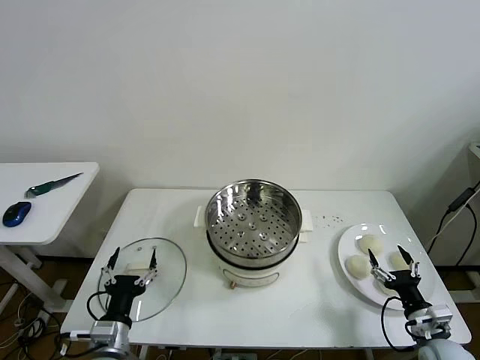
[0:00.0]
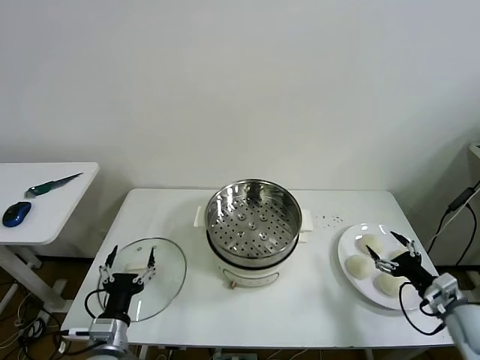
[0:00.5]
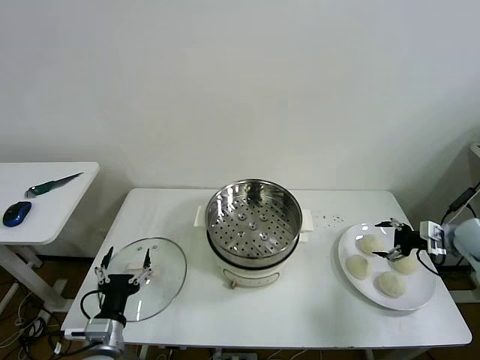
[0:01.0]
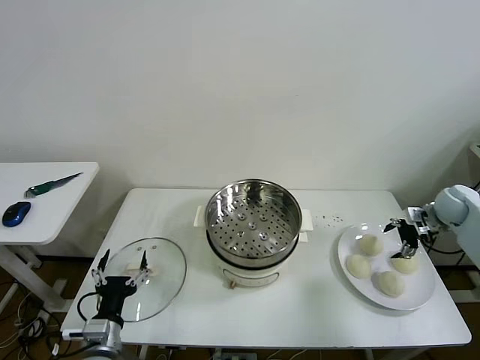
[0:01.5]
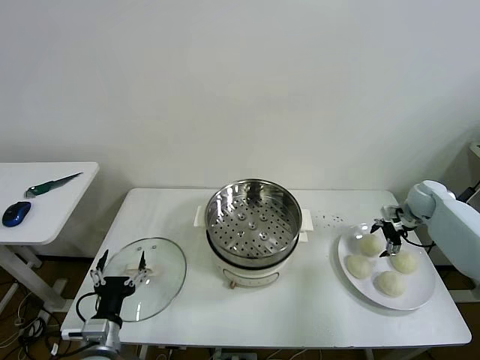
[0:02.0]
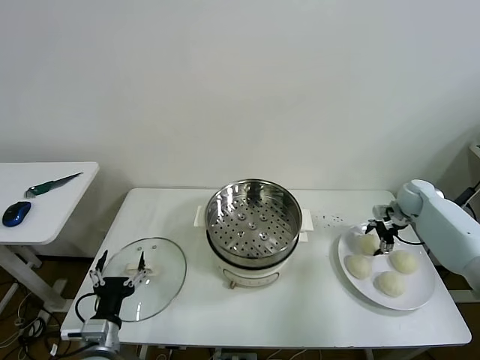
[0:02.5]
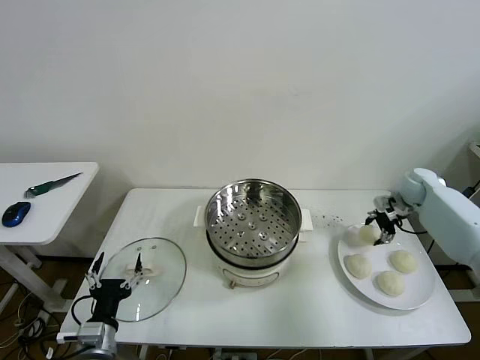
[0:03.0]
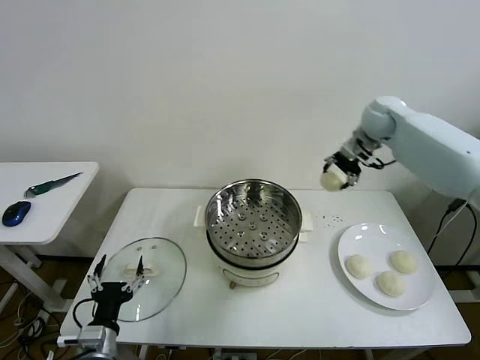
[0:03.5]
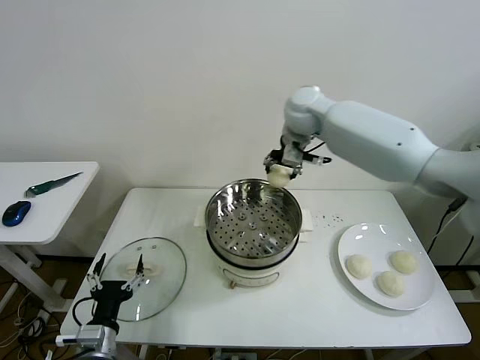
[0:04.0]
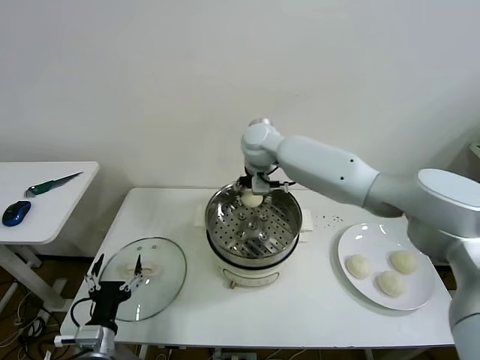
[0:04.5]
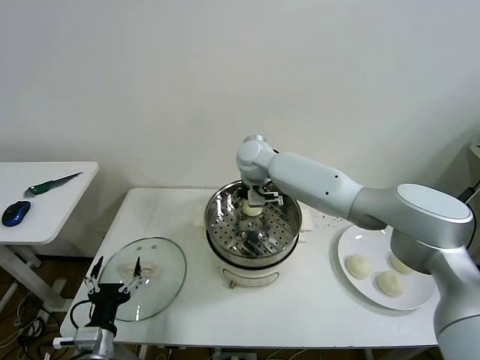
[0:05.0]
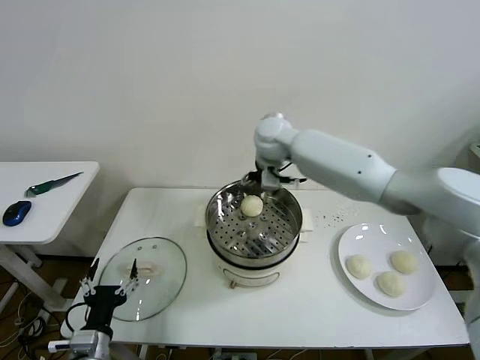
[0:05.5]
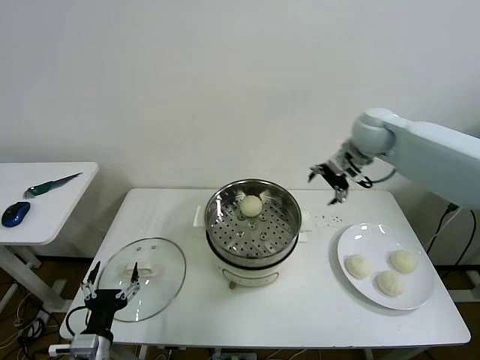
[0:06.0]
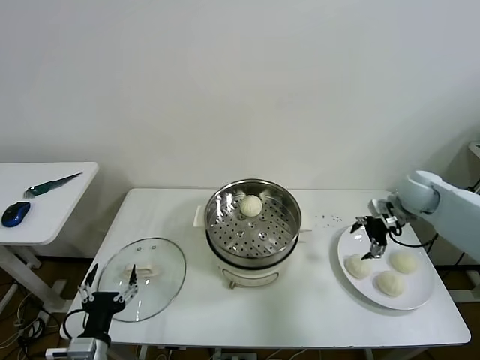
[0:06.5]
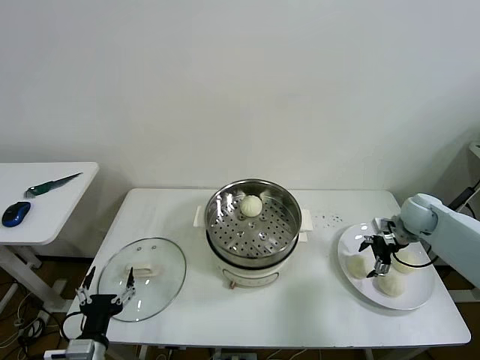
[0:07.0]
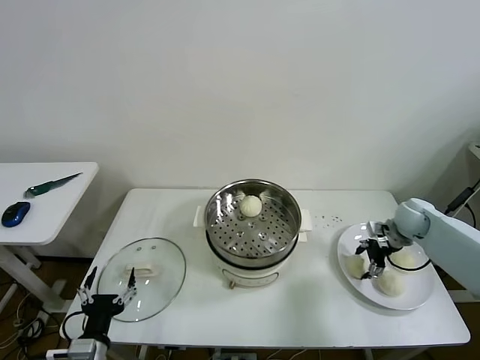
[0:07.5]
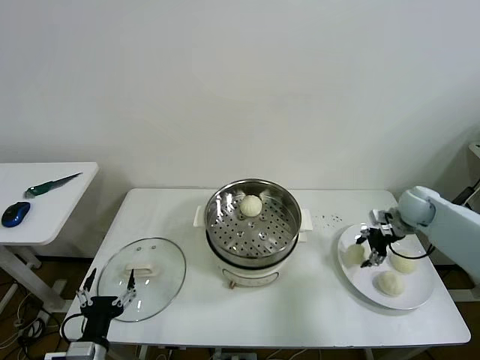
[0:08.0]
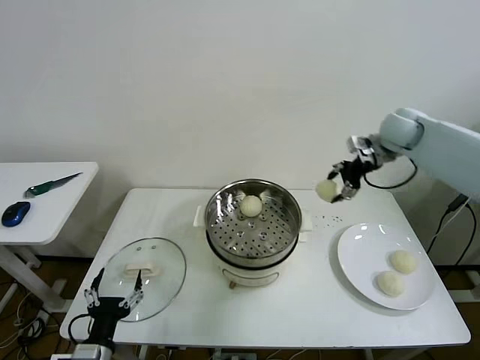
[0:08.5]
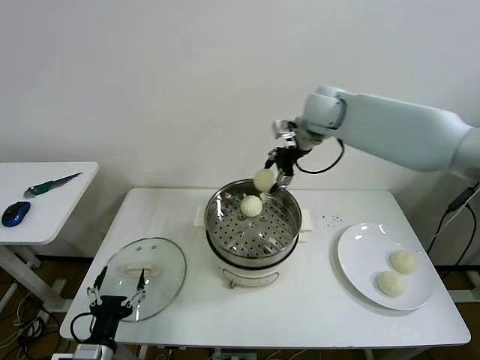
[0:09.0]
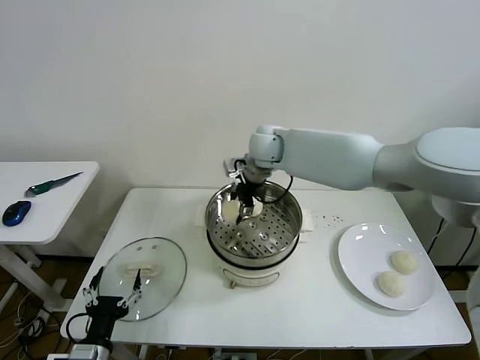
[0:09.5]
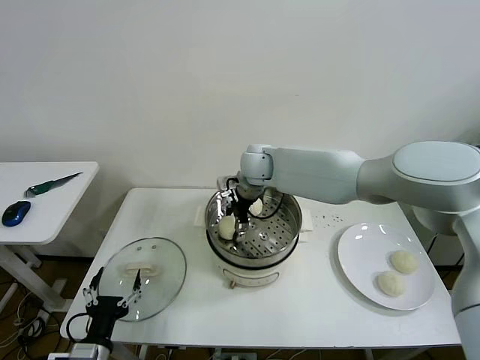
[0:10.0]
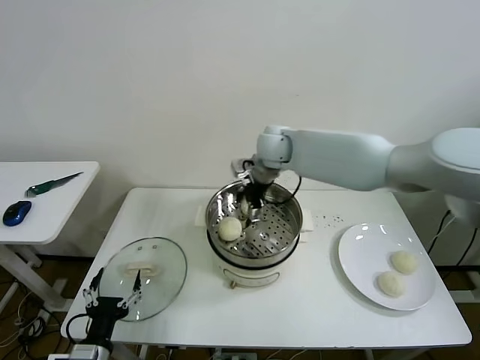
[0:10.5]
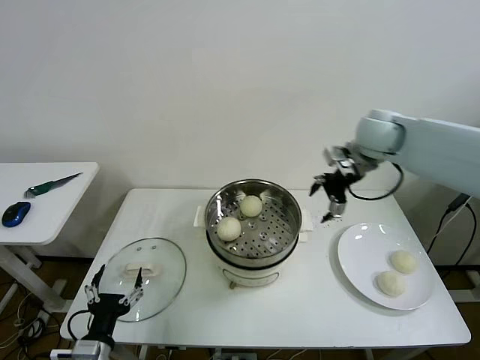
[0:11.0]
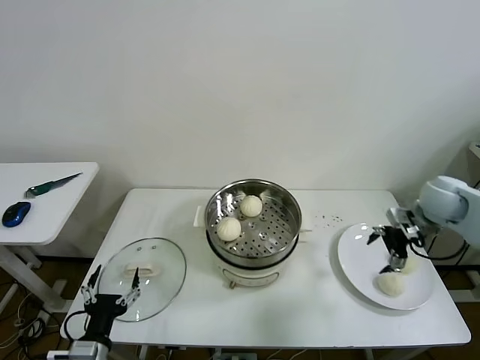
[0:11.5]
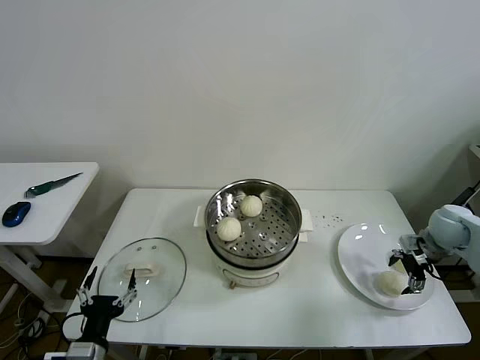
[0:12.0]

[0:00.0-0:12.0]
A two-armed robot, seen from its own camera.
Task of the whole recording: take steamed baozi put them in steamer then cover it.
Step, 0:00.0 to 0:02.5: Grasp the baozi in the plate with right gripper.
Step, 0:03.0 to 0:05.0: Place the baozi on the steamer with right gripper.
Step, 0:05.5 to 0:07.0: Grasp the baozi in the plate with right gripper.
Step, 0:07.5 to 0:10.0: Place the baozi on the steamer with right gripper.
0:02.0 to 0:04.0: The right gripper heads to the left and upward, covering roughly 50 cm, and closes.
0:04.0 to 0:06.0: The right gripper shifts approximately 25 cm to the right, and opens.
0:06.0 to 0:08.0: The right gripper is displaced downward and to the right by some 15 cm, and closes up.
0:08.0 to 0:10.0: The right gripper moves to the left, some 40 cm, and opens up.
0:10.0 to 0:12.0: The right gripper moves to the right, some 40 cm.

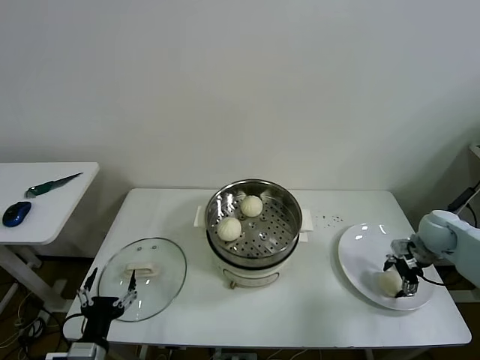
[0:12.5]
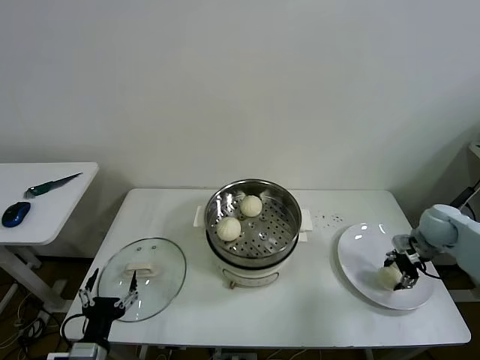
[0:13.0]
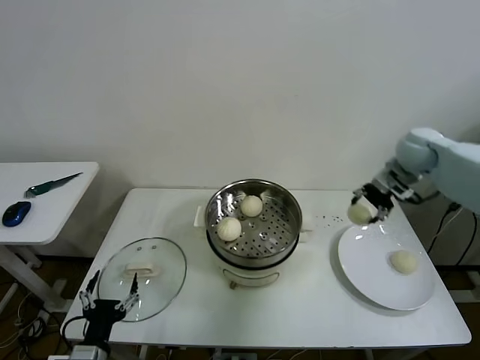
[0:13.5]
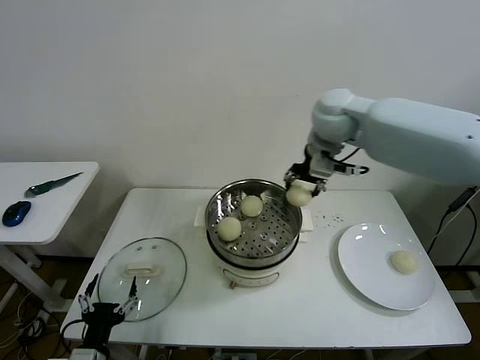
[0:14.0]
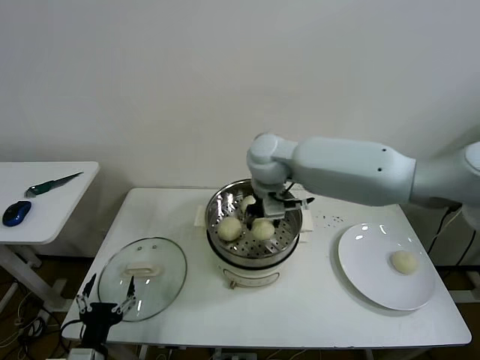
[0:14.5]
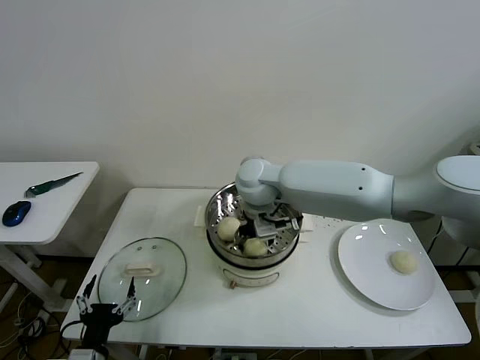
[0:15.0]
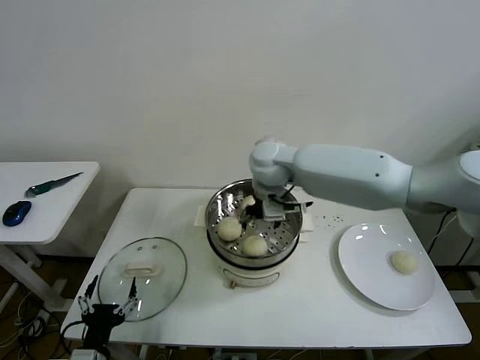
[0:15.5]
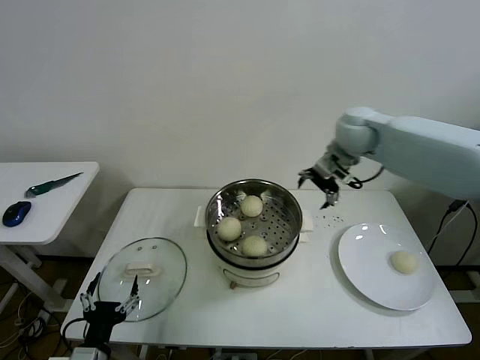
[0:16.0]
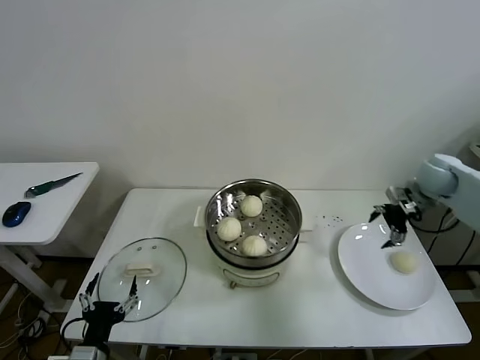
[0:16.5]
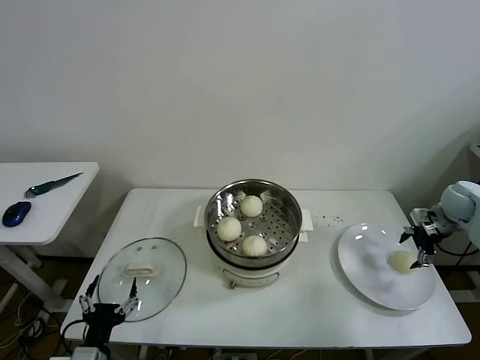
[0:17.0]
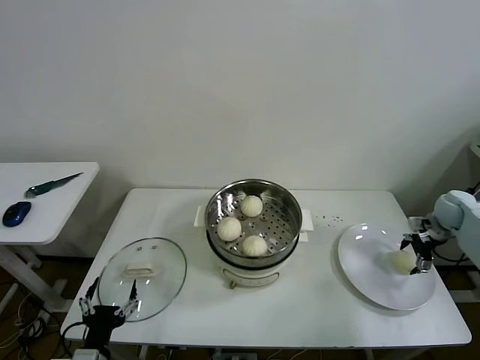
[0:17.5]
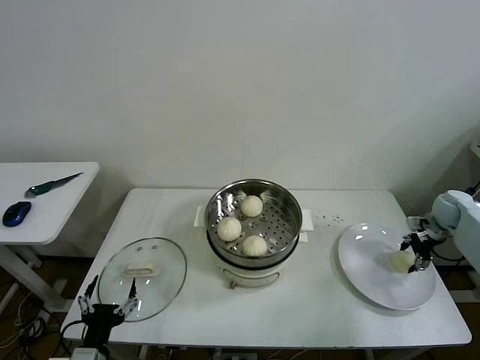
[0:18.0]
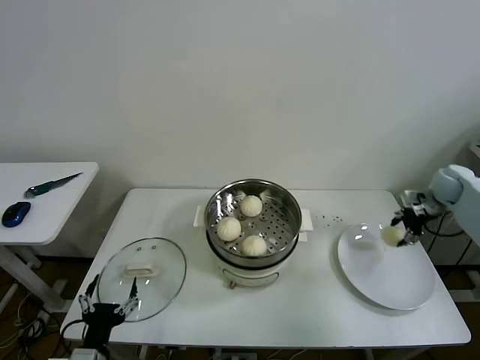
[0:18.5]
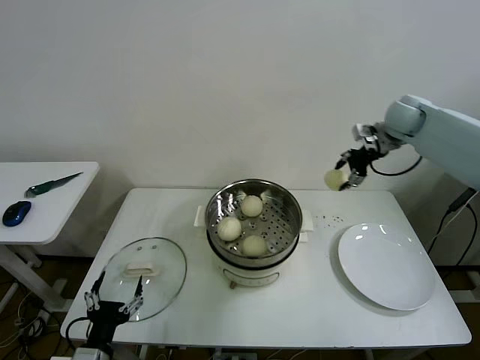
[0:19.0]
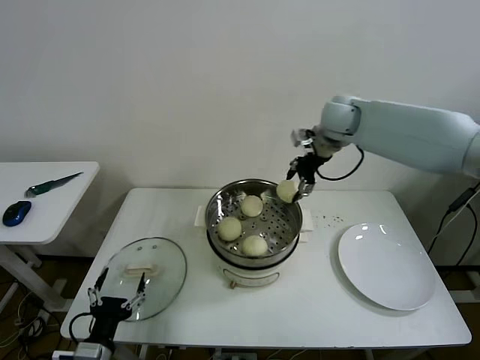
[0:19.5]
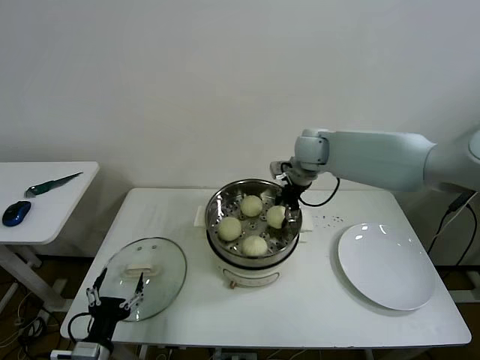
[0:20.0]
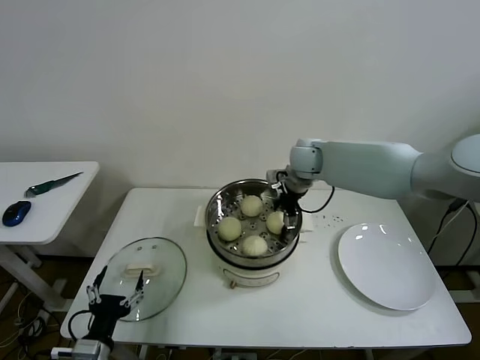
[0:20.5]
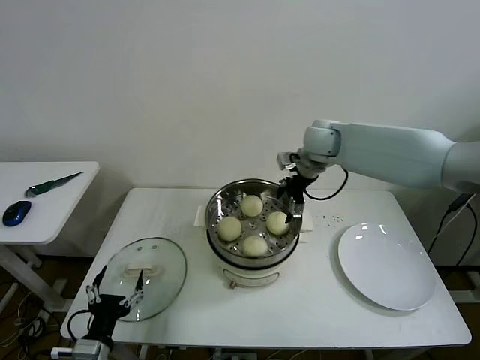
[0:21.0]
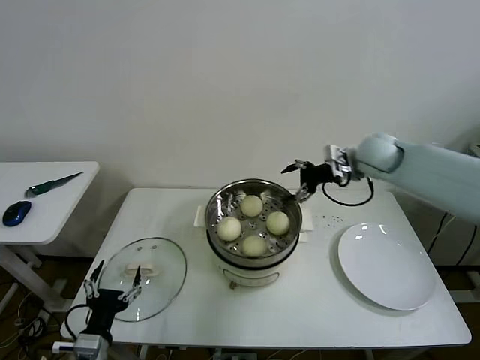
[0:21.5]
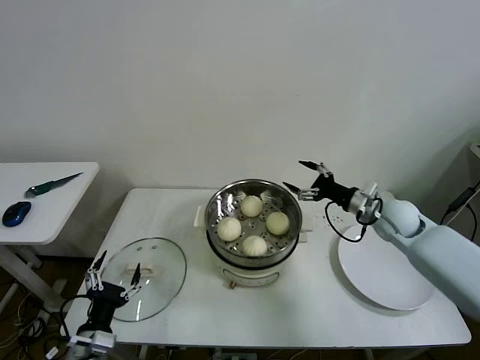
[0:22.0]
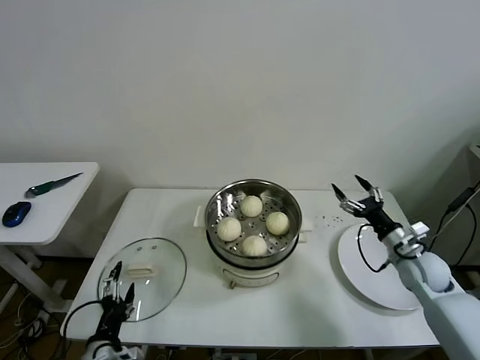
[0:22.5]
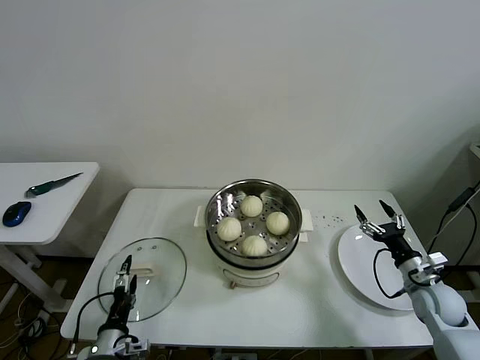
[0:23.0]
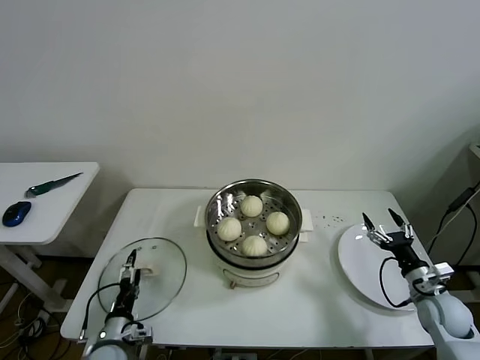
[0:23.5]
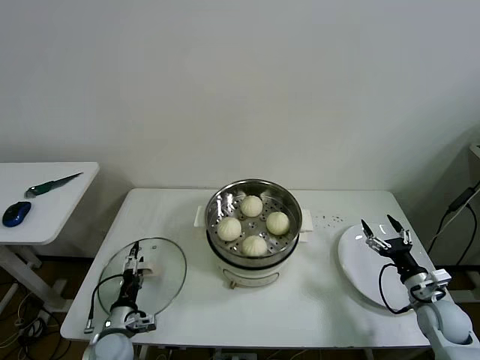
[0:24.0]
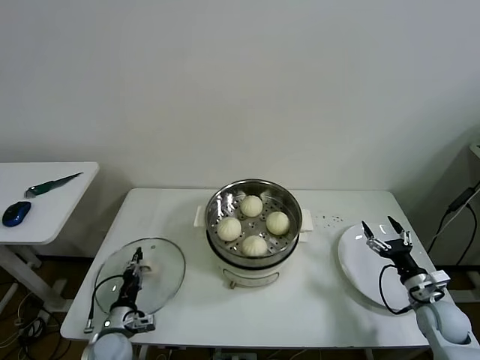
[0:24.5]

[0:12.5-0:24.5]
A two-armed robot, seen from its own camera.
Task of the whole recording: take steamed baozi put them in steamer then cover it.
Step, 0:13.0 to 0:15.0: Place the baozi on the steamer with right gripper.
Step, 0:15.5 to 0:17.5: Grasp the baozi in the plate with right gripper.
Step, 0:18.0 to 0:20.5: Place the baozi on the steamer with right gripper.
0:12.5 to 0:14.5: The right gripper shifts approximately 50 cm to the left and upward, and closes.
0:14.5 to 0:16.5: The right gripper travels to the right by approximately 40 cm, and opens its fingers.
0:16.5 to 0:18.5: The right gripper travels downward and back again, about 10 cm each way, and closes its fingers.
0:18.5 to 0:20.5: The right gripper goes some 35 cm to the left, and opens its fingers.
0:20.5 to 0:22.5: The right gripper moves to the right, backward and downward, some 35 cm.
0:22.5 to 0:24.5: The right gripper shifts roughly 10 cm backward and downward. Meanwhile the left gripper moves downward and forward, about 15 cm, and closes.

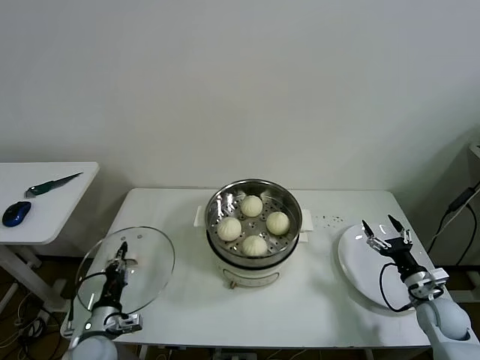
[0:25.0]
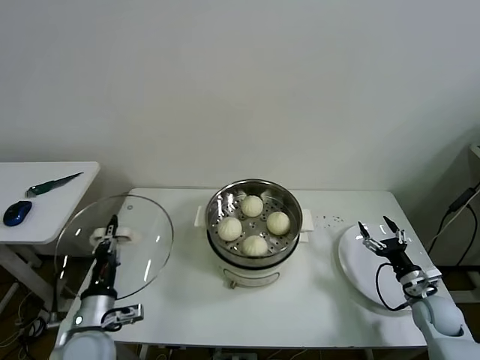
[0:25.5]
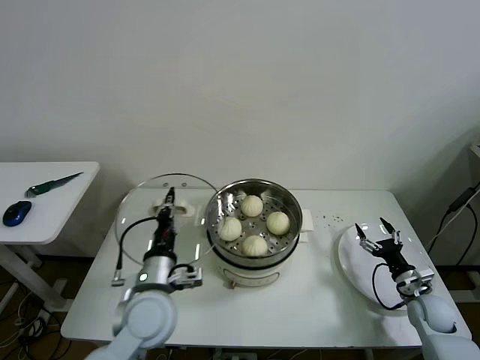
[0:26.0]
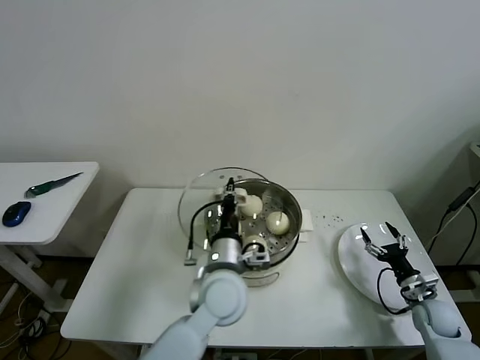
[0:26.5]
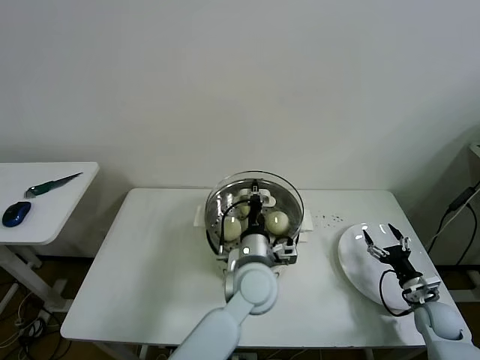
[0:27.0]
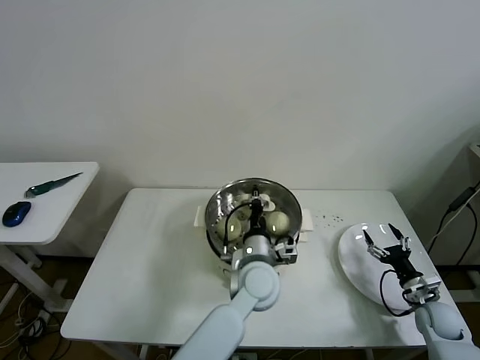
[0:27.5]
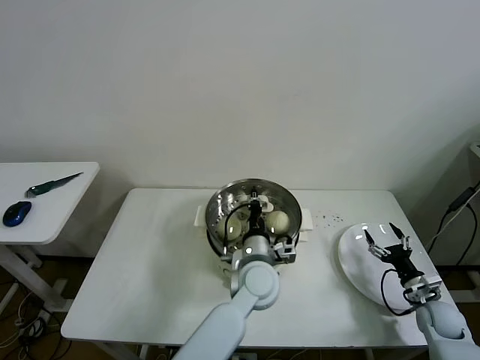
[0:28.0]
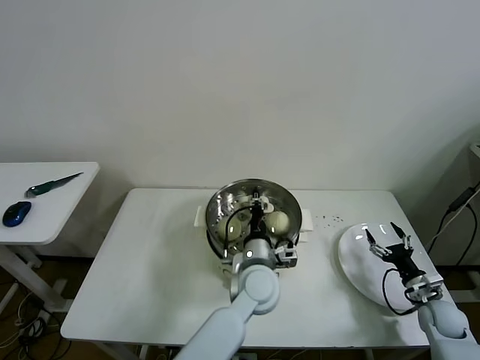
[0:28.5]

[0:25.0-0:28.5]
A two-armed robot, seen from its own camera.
Task of the whole recording: take steamed baozi put them in steamer then cover it.
Step, 0:25.0 to 0:28.0: Place the pot lid on the steamer with left gripper.
0:25.0 to 0:27.0: The left gripper moves to the right and upward, about 40 cm.
0:27.0 to 0:28.5: There are only small adjustments of the grippers.
